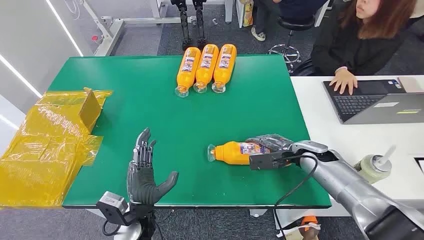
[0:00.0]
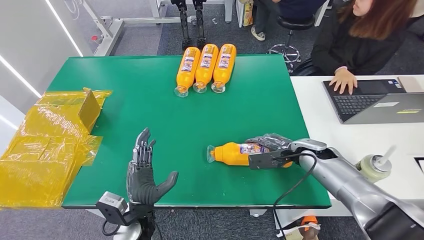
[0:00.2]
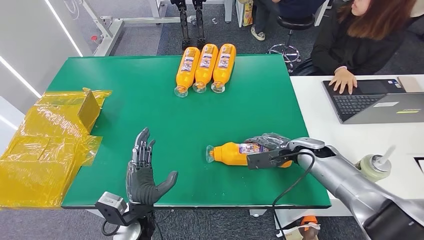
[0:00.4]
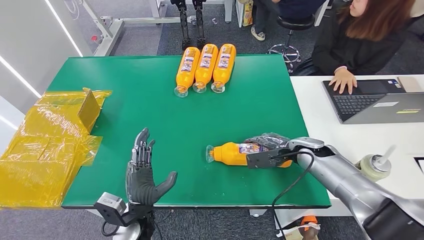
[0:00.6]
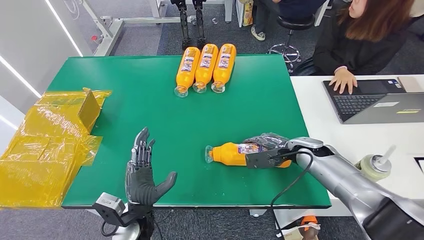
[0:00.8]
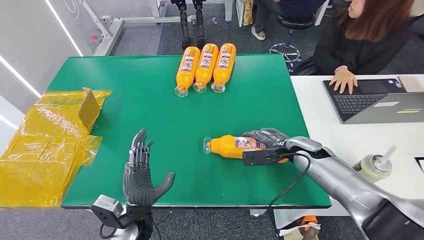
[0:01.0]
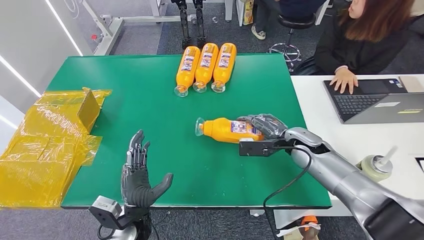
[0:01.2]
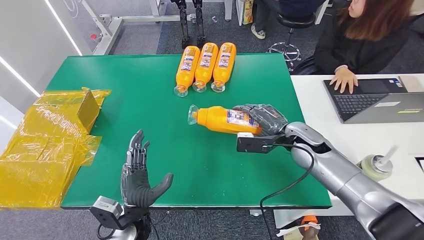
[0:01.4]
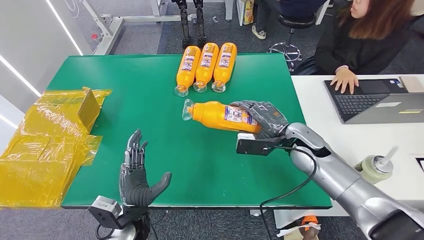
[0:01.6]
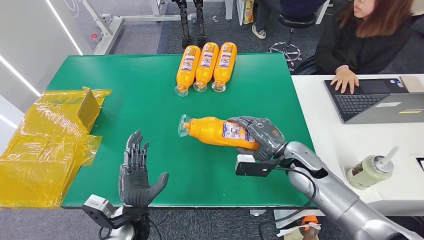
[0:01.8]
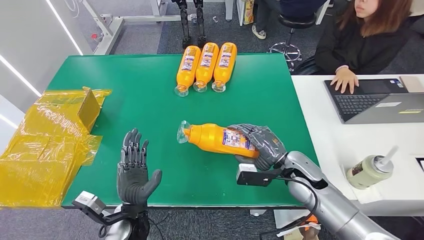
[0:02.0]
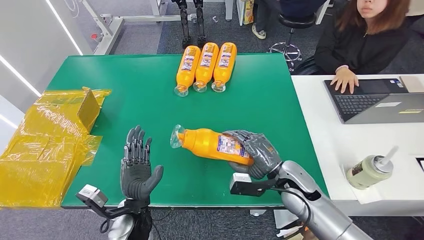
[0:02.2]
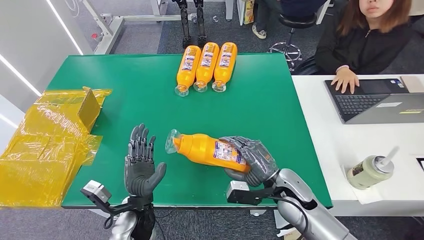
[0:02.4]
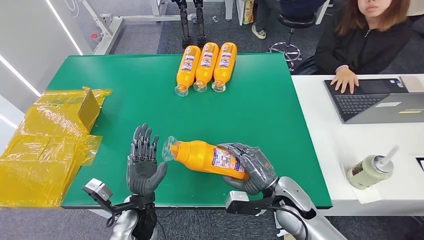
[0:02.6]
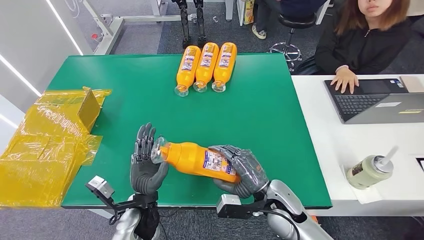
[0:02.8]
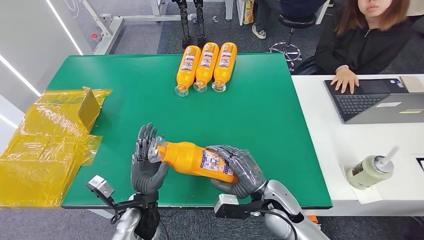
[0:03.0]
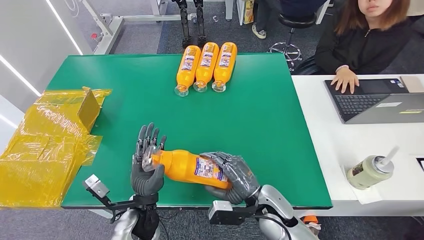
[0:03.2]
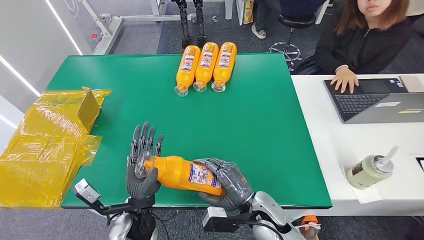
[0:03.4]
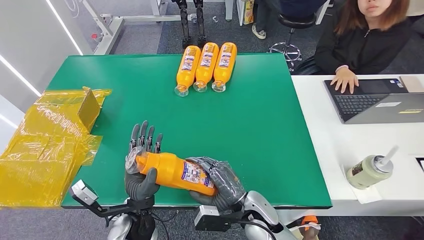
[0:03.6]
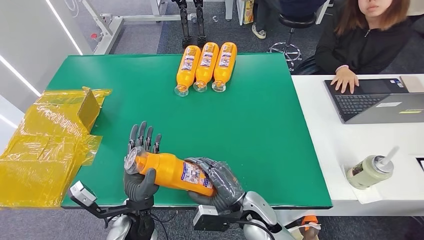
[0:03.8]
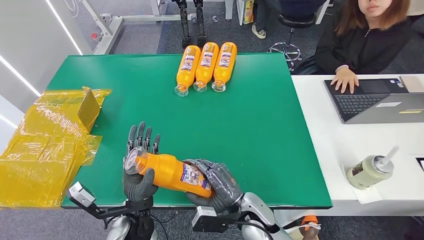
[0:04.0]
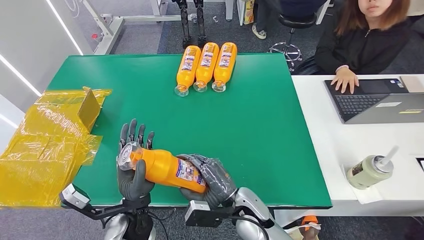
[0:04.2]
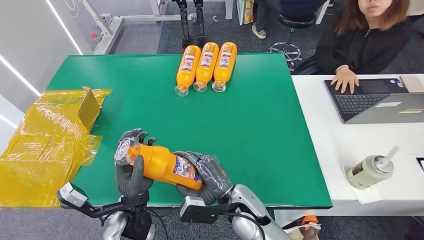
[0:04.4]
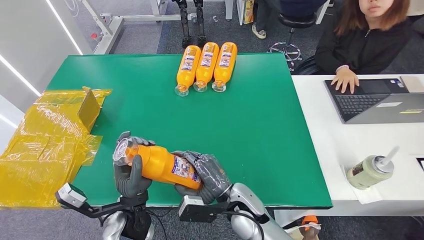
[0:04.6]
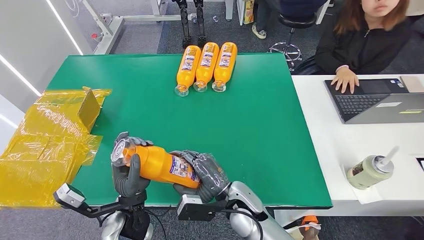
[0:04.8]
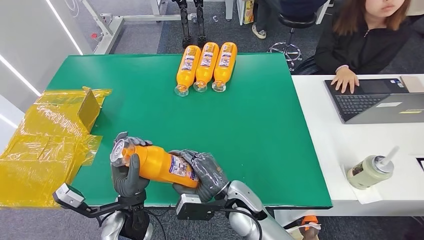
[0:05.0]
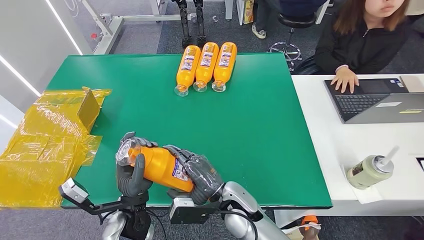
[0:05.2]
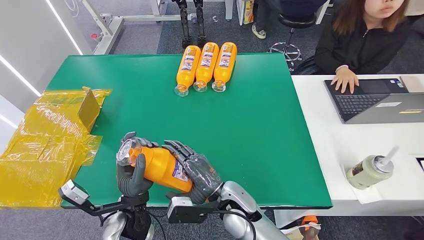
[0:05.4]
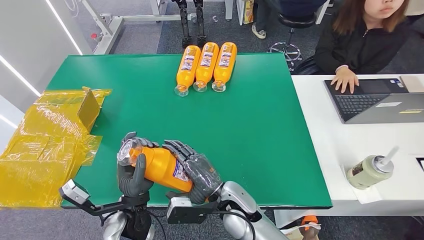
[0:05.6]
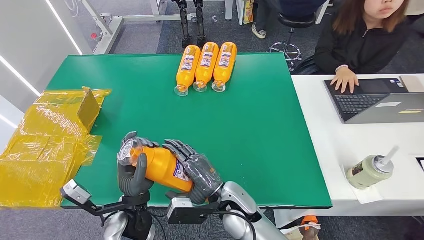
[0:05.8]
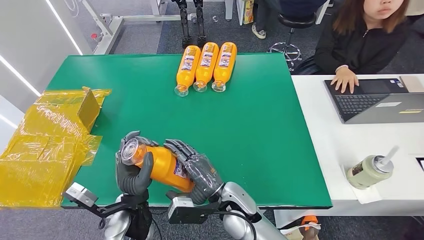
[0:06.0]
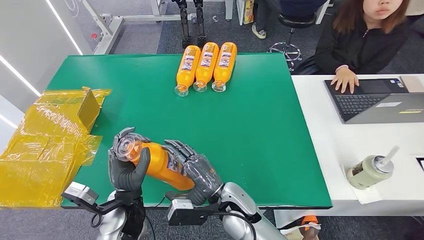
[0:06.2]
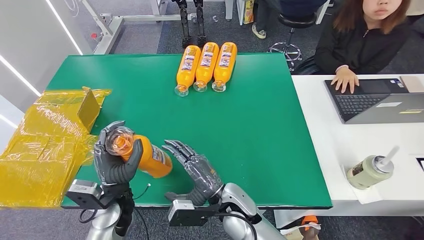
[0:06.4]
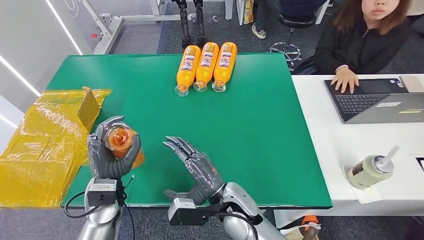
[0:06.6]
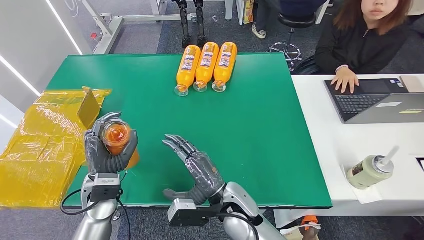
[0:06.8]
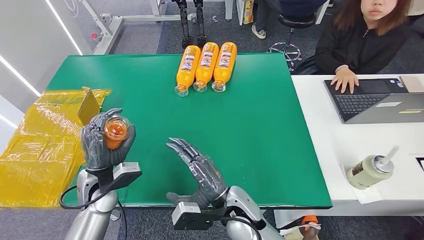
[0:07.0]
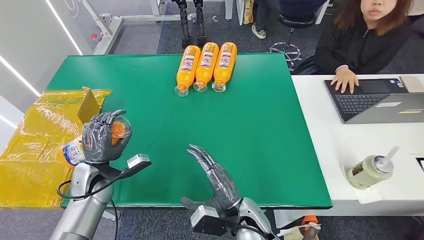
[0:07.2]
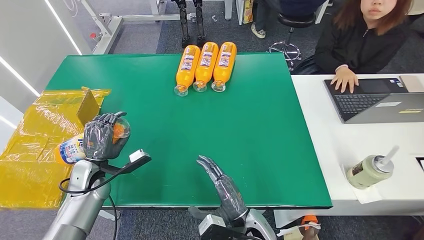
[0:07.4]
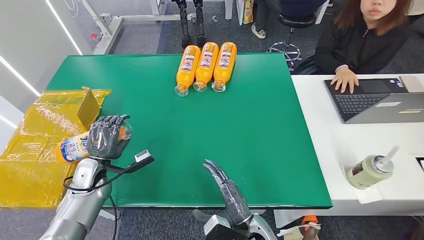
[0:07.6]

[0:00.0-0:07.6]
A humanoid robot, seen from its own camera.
Step, 0:00.0 to 0:03.2: Pick up the bottle from the table.
Step, 0:03.4 to 0:07.6: Turn the bottle to the front side.
0:01.6 to 0:03.0: The right hand shifts some 20 cm backward, to the left and downward.
0:03.0 to 0:04.6: The right hand travels to the left by approximately 10 cm.
0:04.6 to 0:06.0: The hands make only small movements.
0:06.0 to 0:07.6: The right hand is displaced backward, downward and to the right by approximately 10 cm. The left hand is displaced to the left and forward by some 20 cm.
